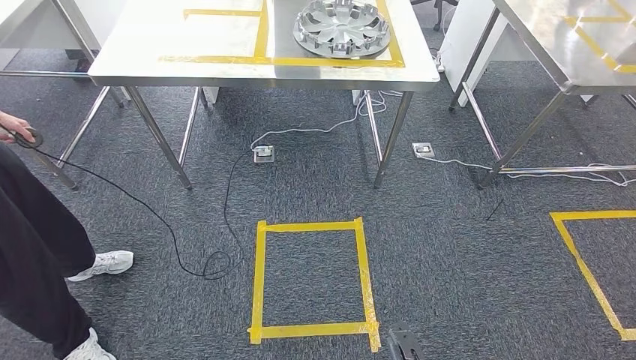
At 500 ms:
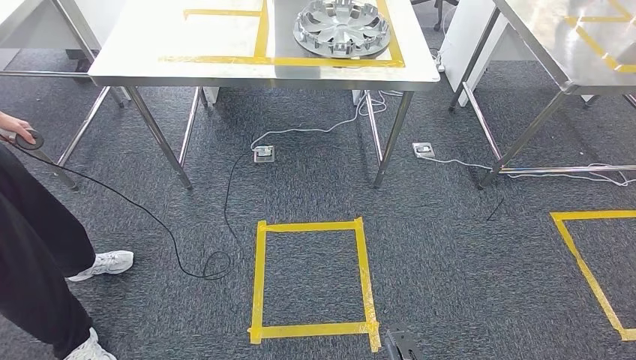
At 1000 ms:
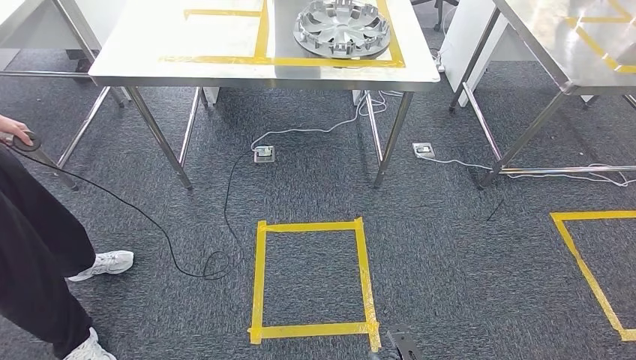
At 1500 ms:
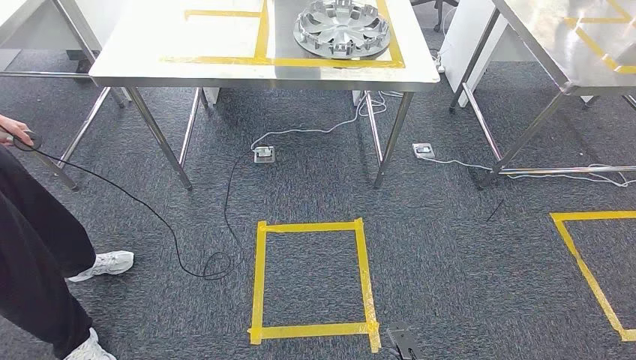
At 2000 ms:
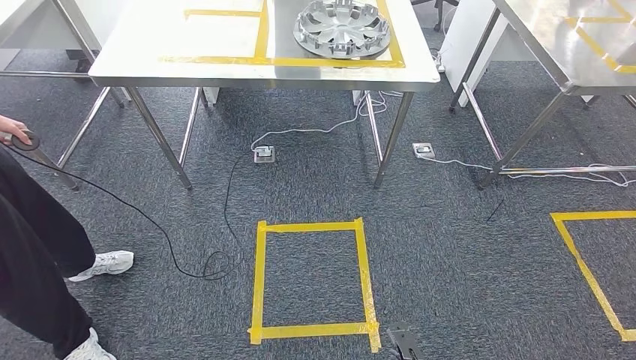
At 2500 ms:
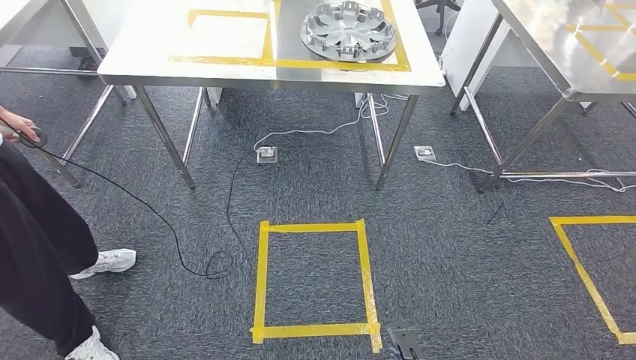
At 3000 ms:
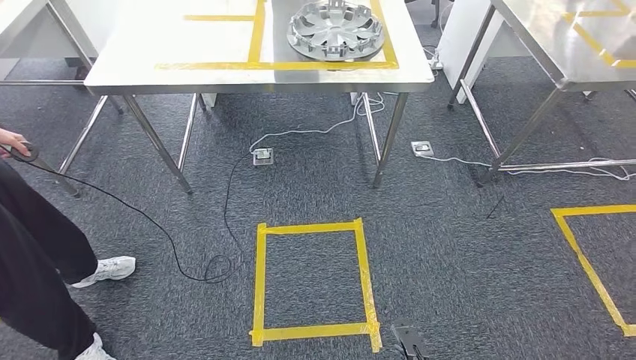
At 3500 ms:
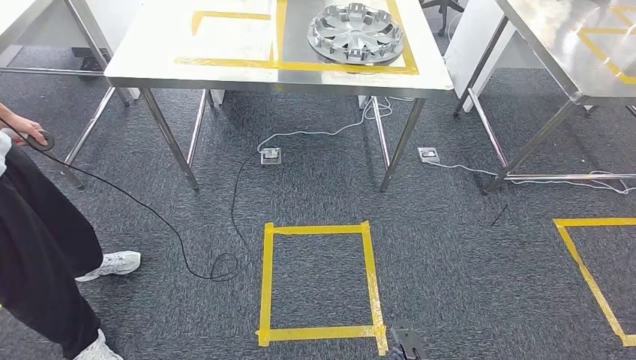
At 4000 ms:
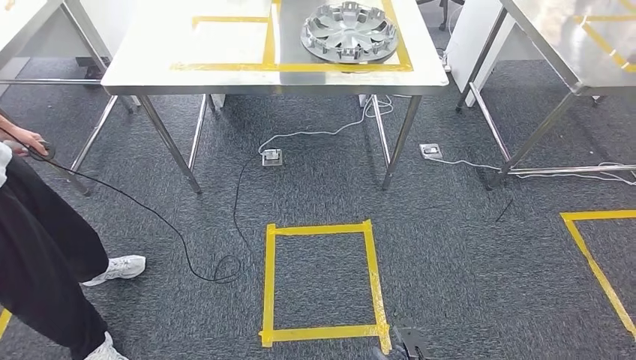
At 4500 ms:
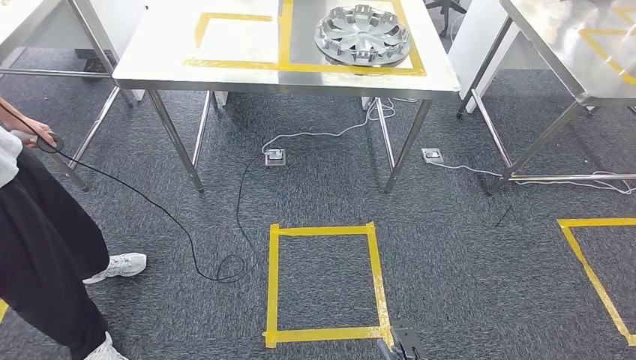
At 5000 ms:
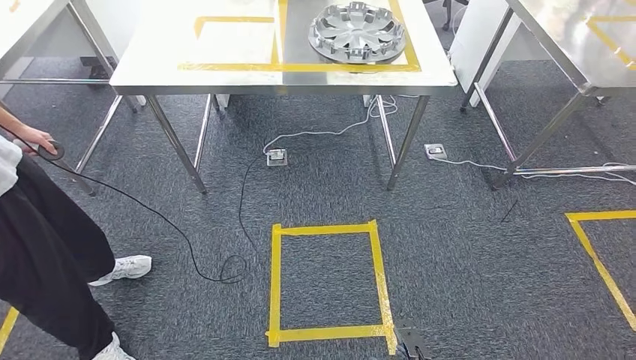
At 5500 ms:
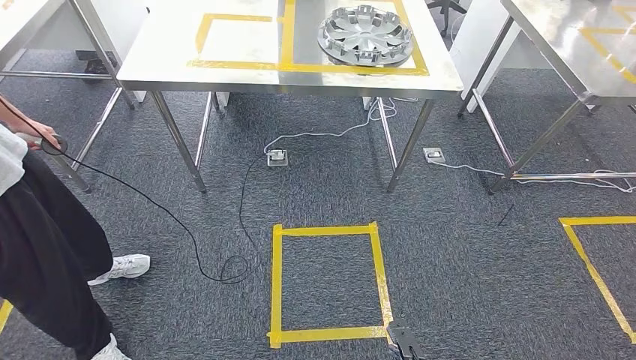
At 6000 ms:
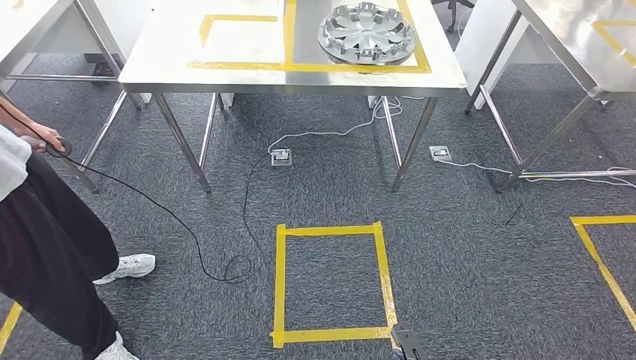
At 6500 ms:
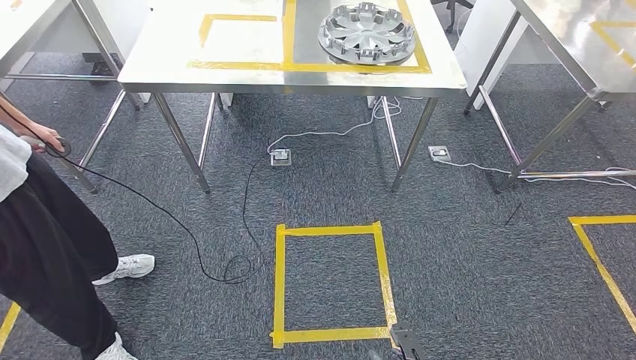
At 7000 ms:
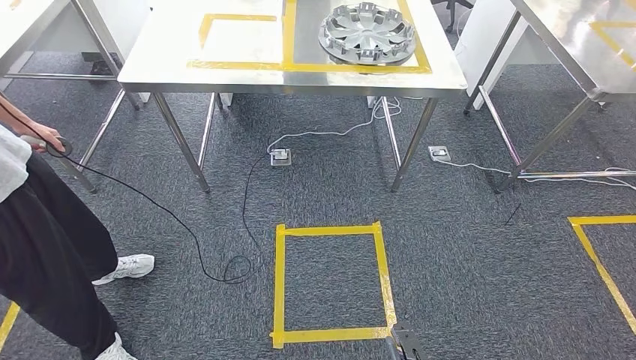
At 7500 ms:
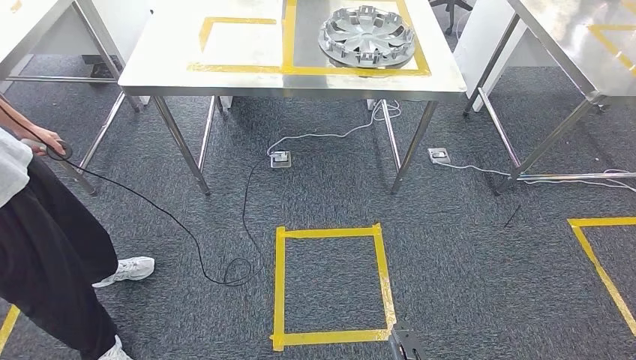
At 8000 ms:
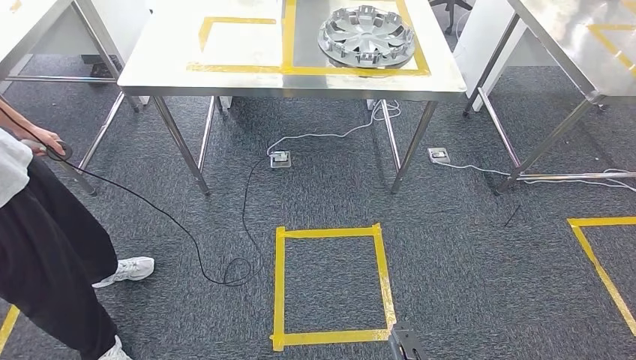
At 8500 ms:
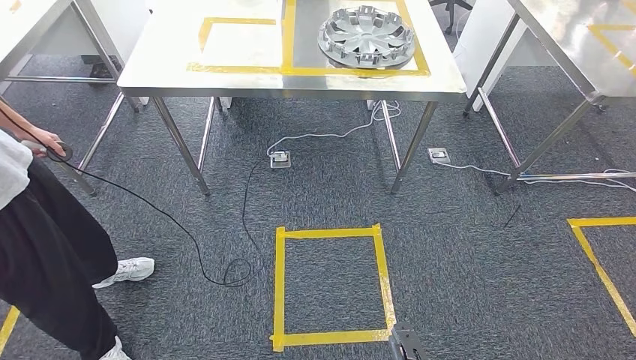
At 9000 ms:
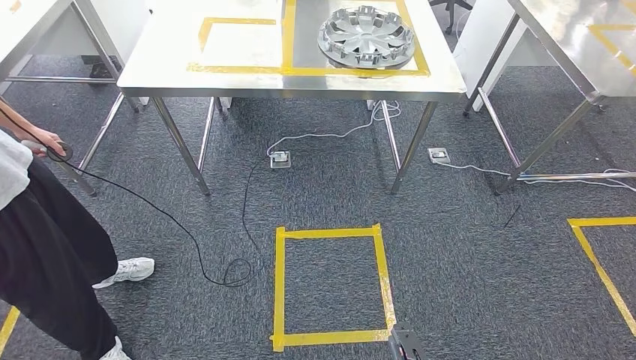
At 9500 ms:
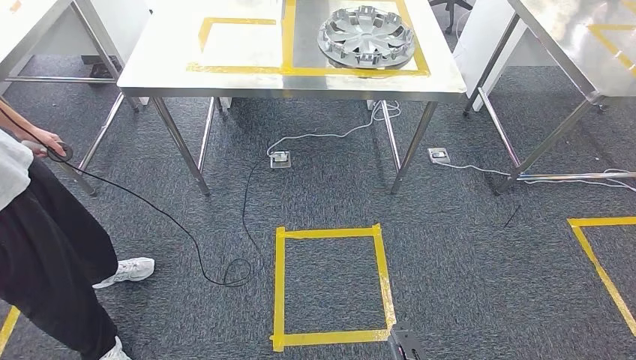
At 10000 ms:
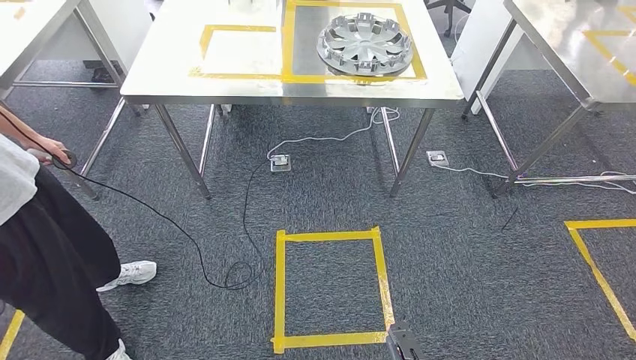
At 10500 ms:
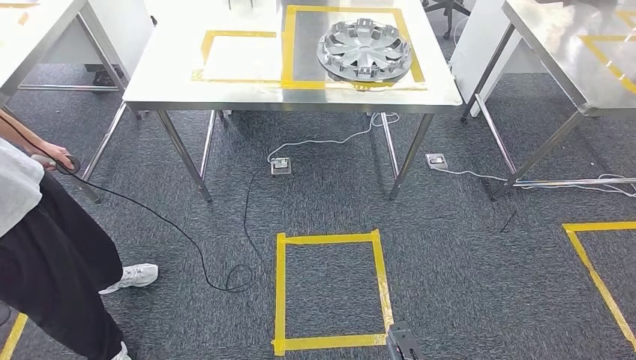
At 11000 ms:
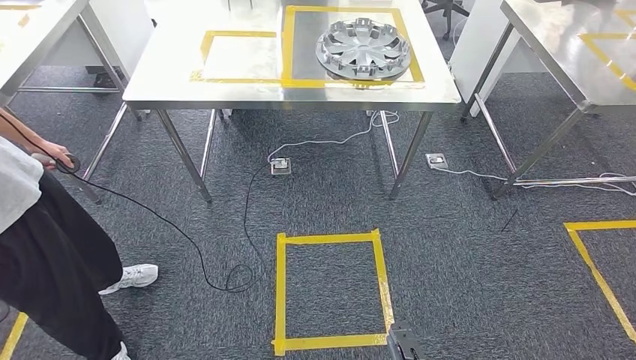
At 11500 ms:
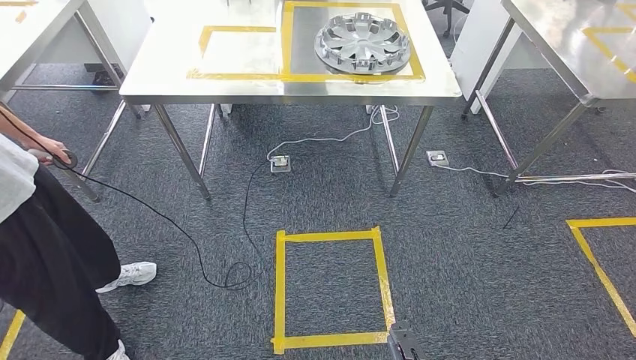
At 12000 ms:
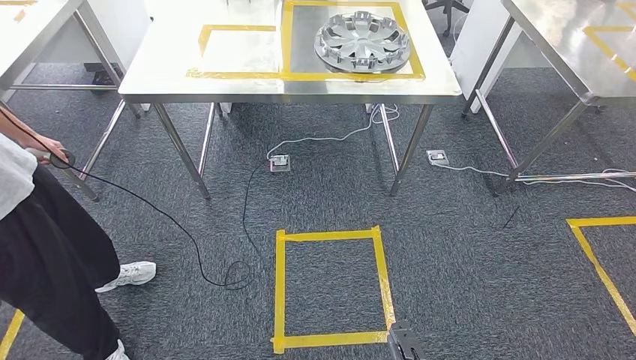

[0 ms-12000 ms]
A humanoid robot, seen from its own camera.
0 ms to 2000 ms: Both hands stay about where they are.
6000 ms to 12000 ms: Both hands stay put.

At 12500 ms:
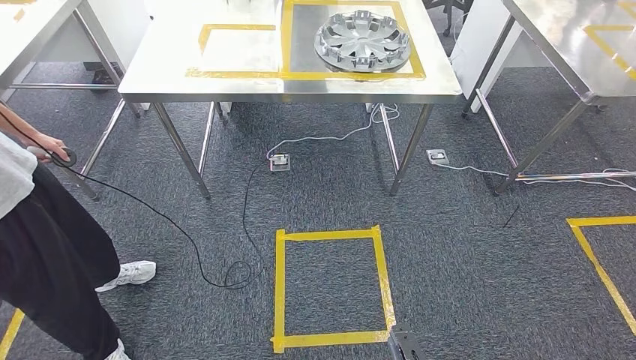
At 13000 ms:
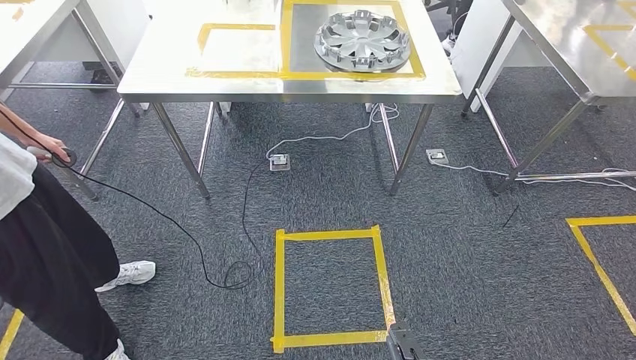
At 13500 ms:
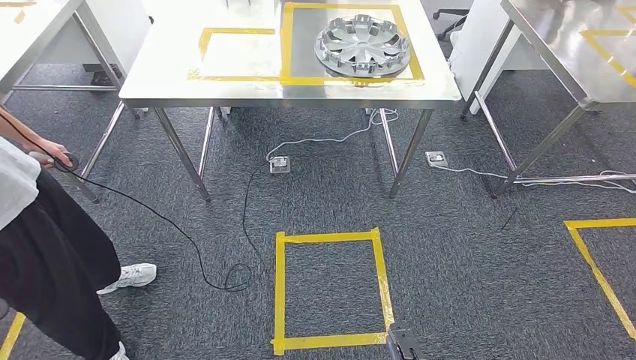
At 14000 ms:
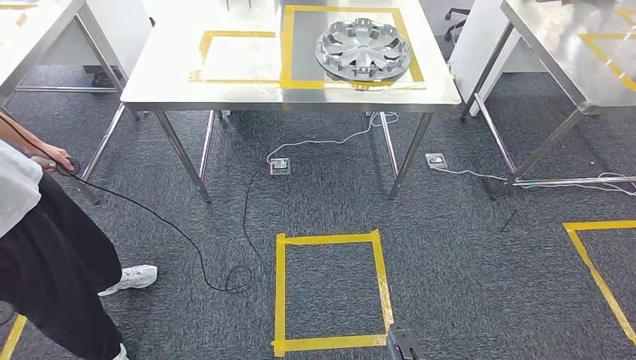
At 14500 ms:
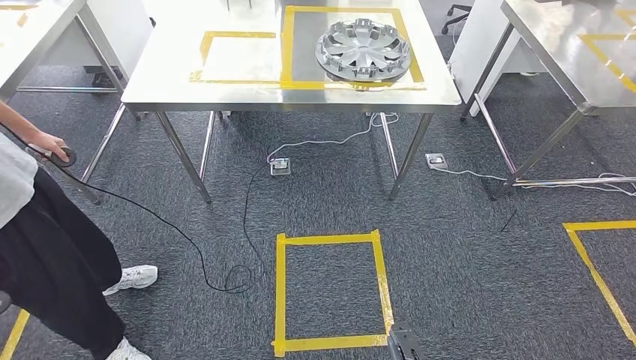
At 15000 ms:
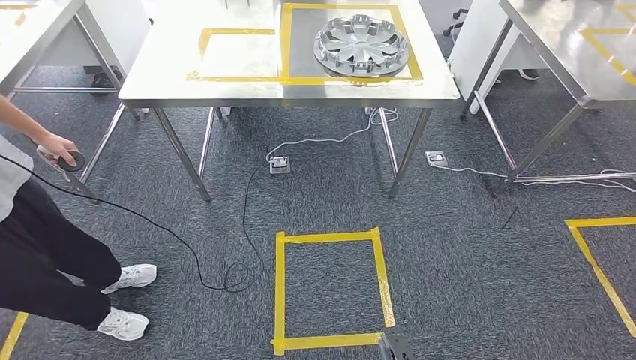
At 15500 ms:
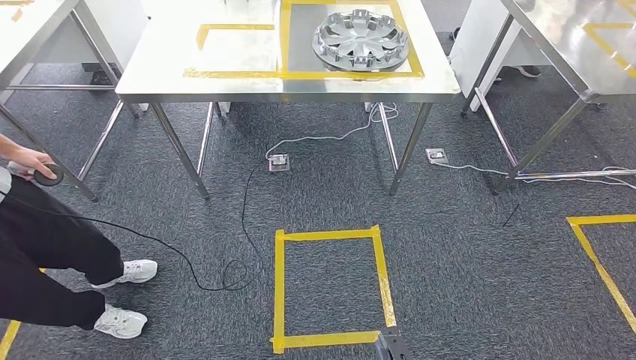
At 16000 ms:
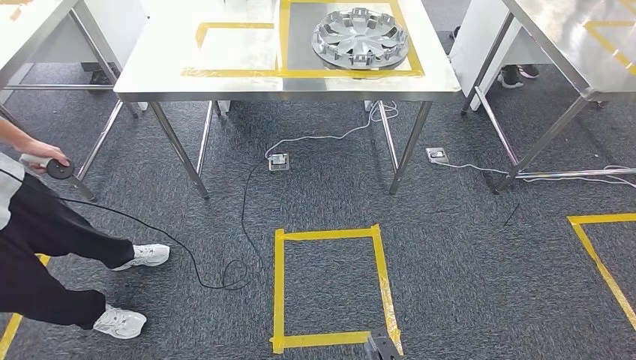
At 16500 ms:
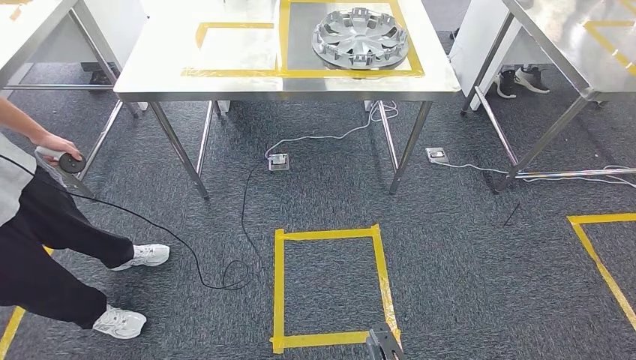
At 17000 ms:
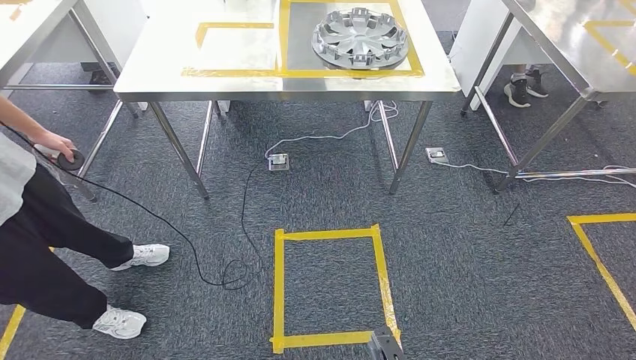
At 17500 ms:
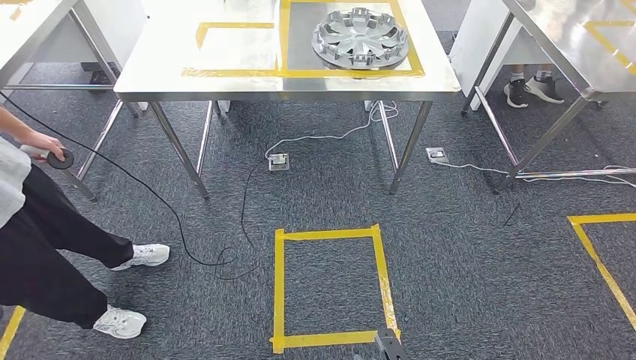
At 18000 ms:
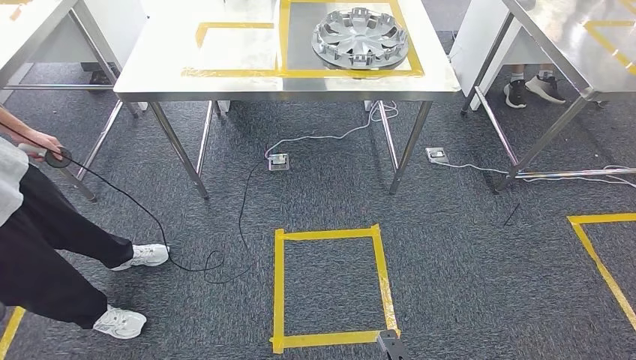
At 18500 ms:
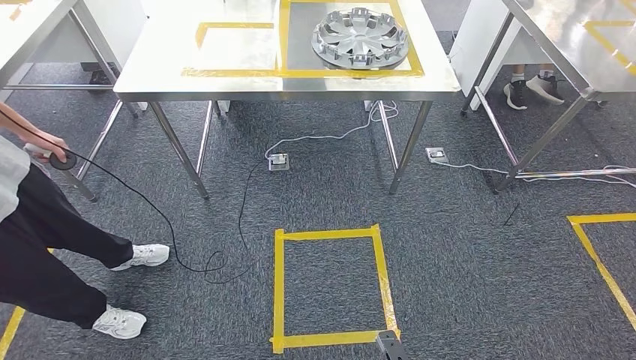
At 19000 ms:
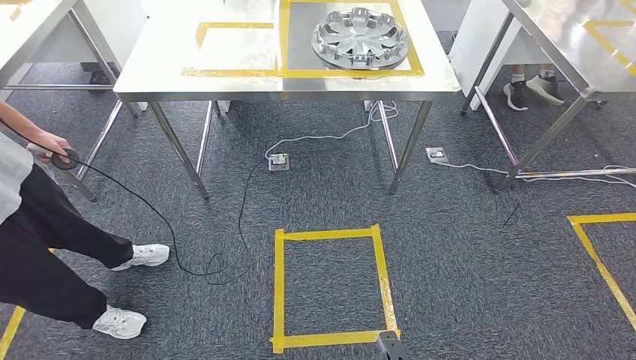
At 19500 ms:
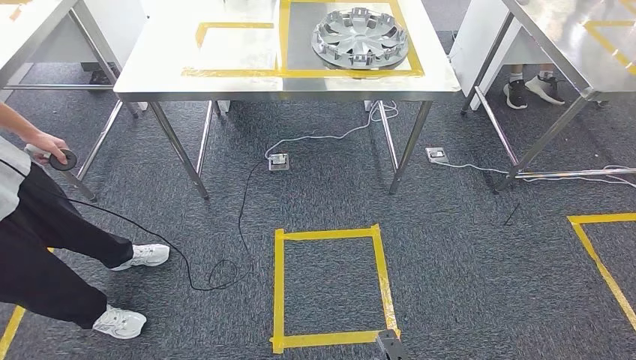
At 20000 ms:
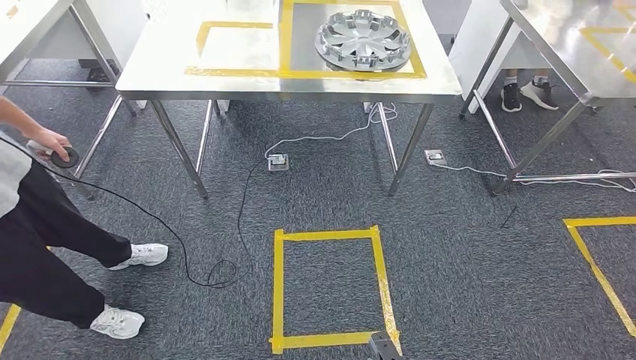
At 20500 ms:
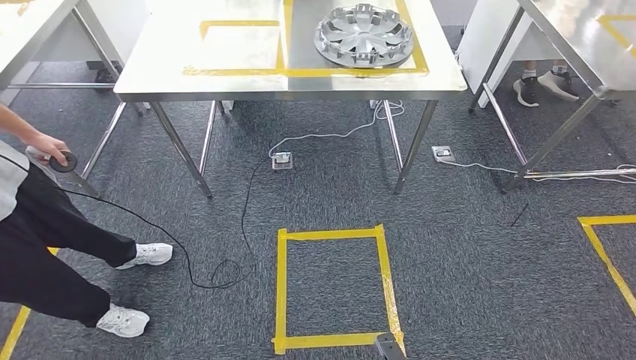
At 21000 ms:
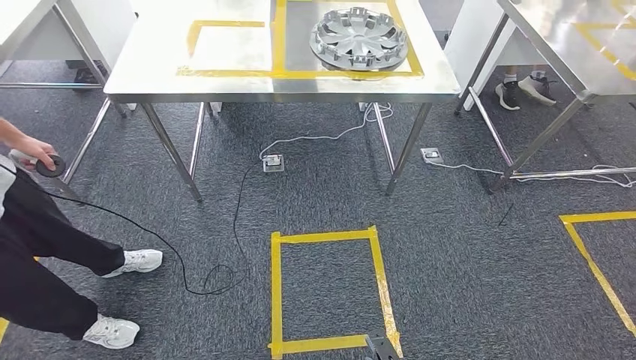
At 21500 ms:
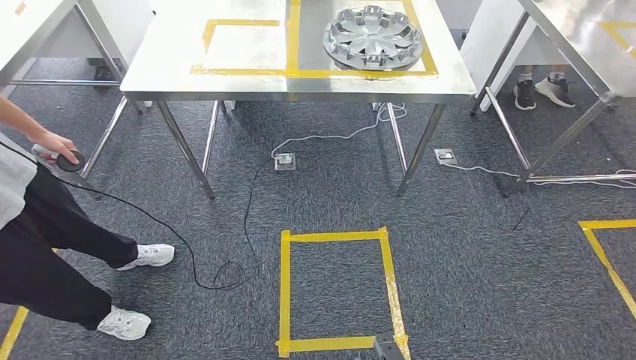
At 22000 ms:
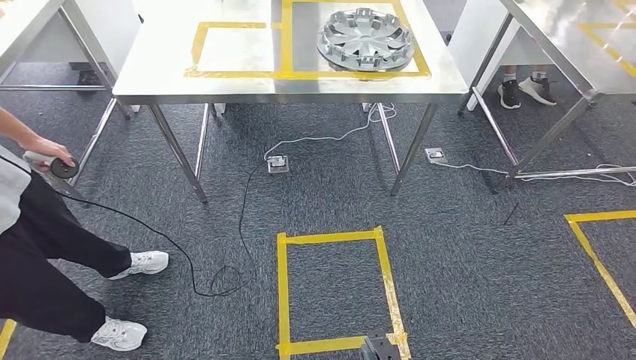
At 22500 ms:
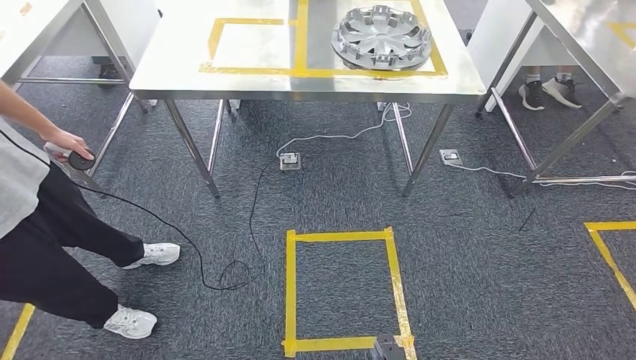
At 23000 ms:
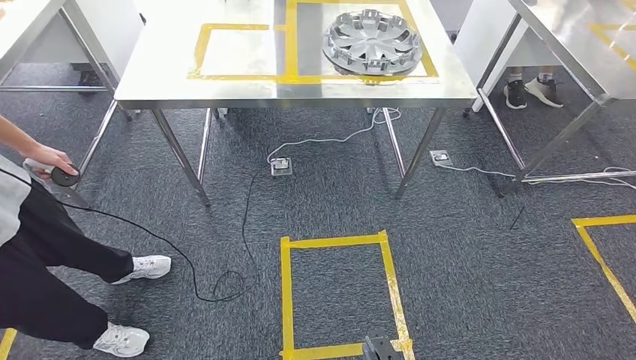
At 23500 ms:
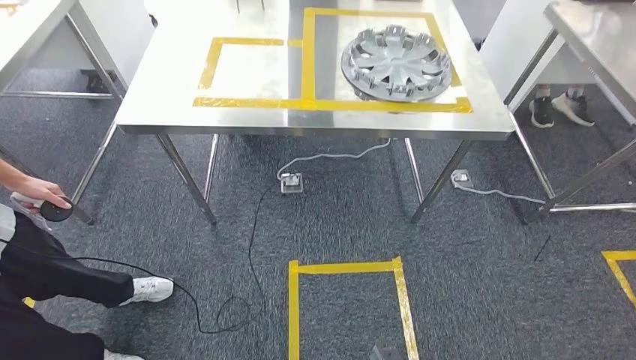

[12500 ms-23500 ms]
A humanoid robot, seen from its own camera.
12500 ms to 14500 ms: Both hands stay put.
16000 ms to 18000 ms: There are only small adjustments of the hands.
18000 ms to 20000 ms: Both hands stay put.
20000 ms to 21500 ms: Neither hand changes place.
